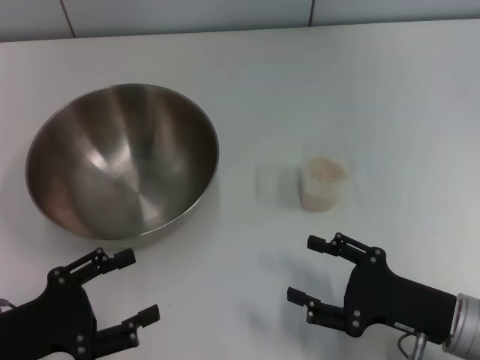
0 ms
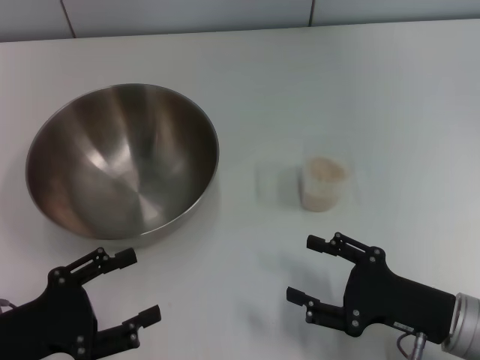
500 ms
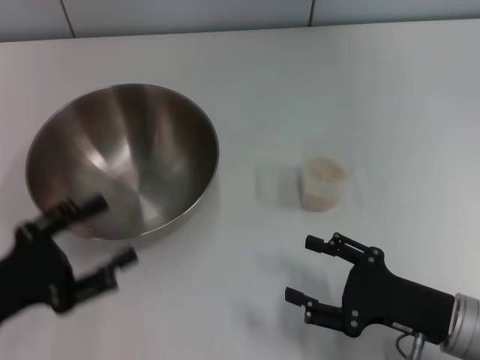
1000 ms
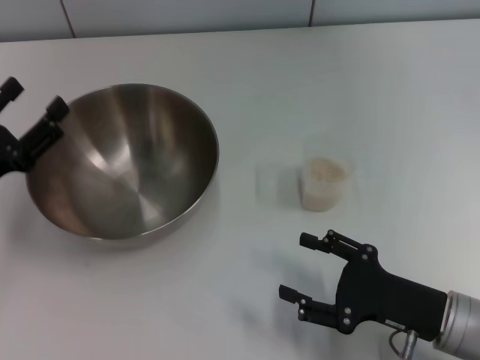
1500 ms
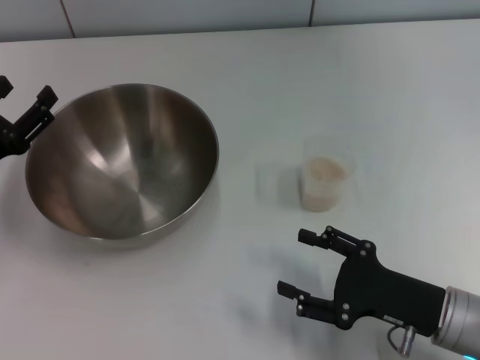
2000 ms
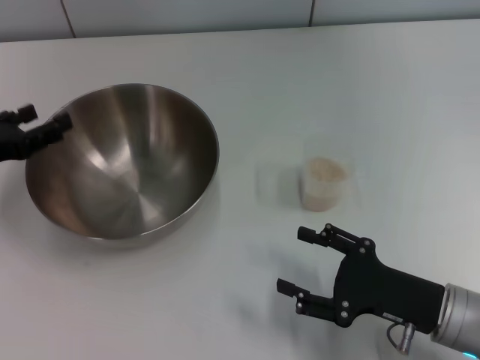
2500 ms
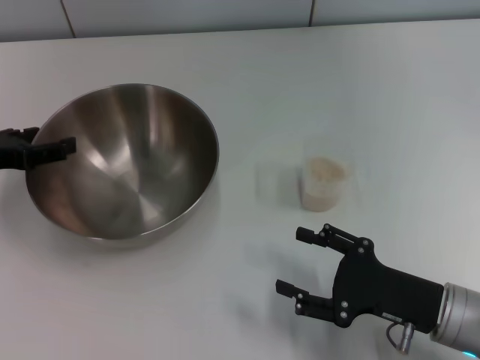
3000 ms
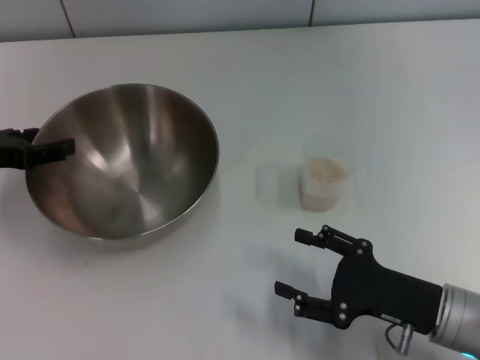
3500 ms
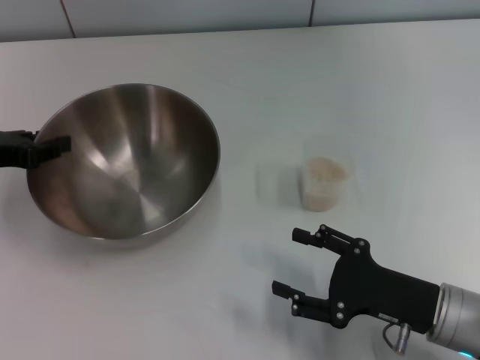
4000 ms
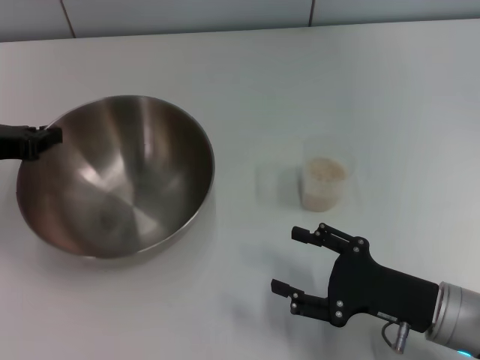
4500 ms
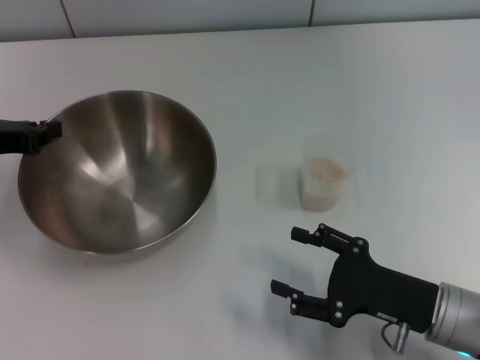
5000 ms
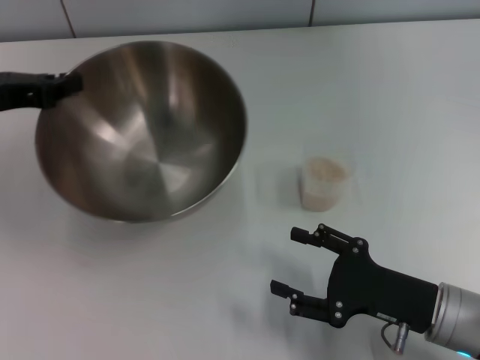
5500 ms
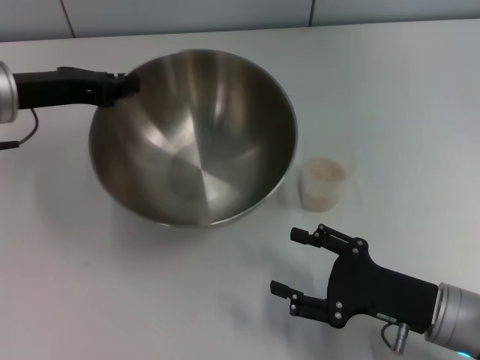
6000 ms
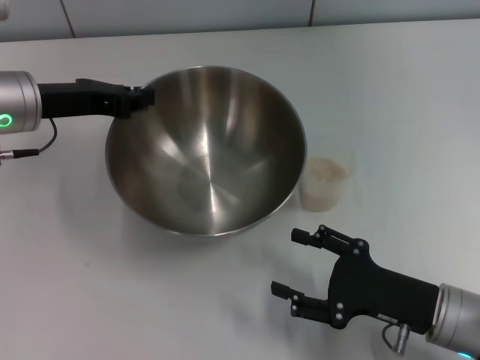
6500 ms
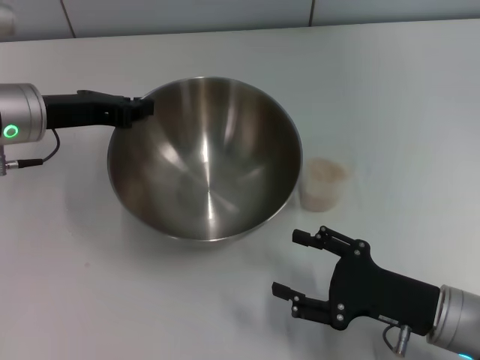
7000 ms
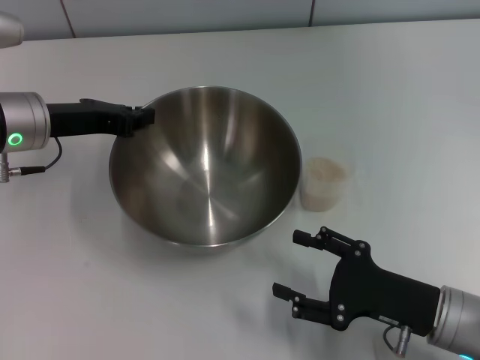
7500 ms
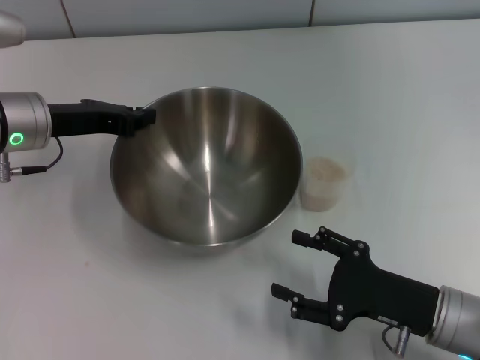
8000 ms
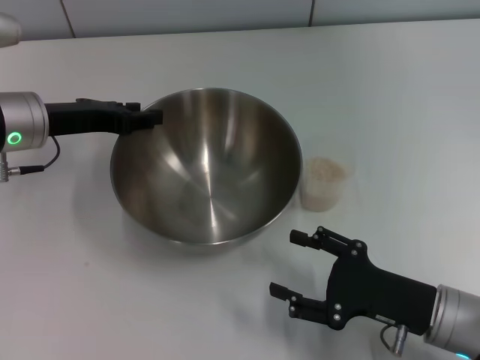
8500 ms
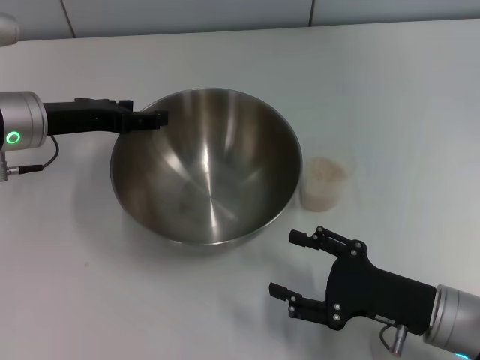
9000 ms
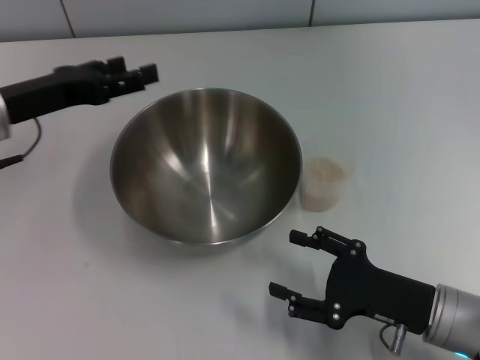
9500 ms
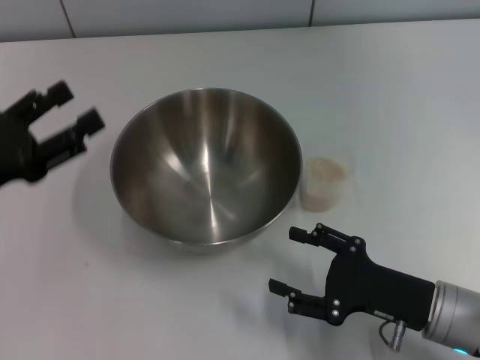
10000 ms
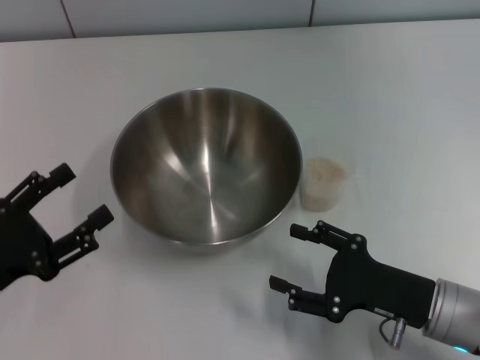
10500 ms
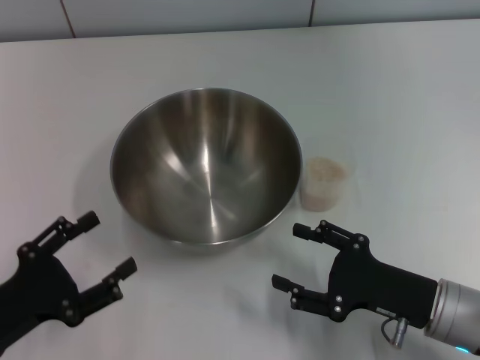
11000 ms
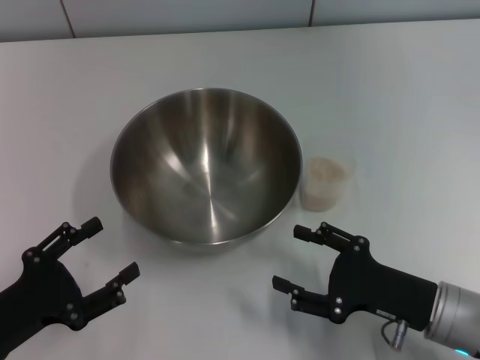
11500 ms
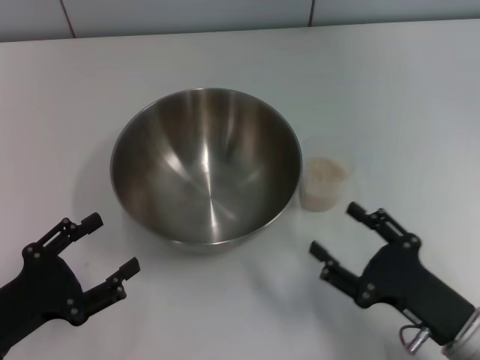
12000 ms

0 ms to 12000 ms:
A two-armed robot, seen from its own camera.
Task of the whole recording: Place the bowl in the middle of the table with one hand and pour the rice from the grain cup into it with the other hand.
Step, 0 ms to 5000 ms: Pick up the bowl with the left gripper.
Step, 5500 ms to 9000 ms: Place the bowl in the center of view with the left gripper.
0 ms to 2000 ms: The left gripper heads forward, covering about 10 cm.
2000 ms to 4000 ms: The left gripper shifts about 10 cm upward and forward.
4000 ms to 6000 ms: The left gripper moves to the right, approximately 5 cm, and closes up.
6000 ms to 8000 ms: The grippers move only a little.
8000 ms to 10000 ms: The left gripper goes roughly 15 cm backward and to the left, and opens.
10000 ms to 12000 ms: The left gripper shifts some 10 cm backward and downward.

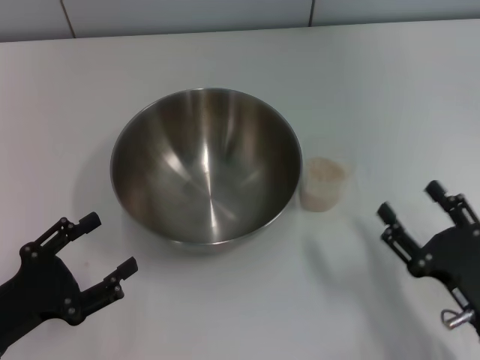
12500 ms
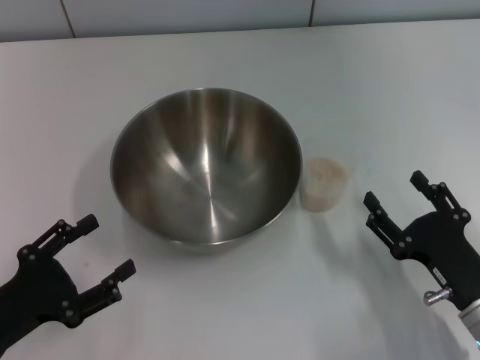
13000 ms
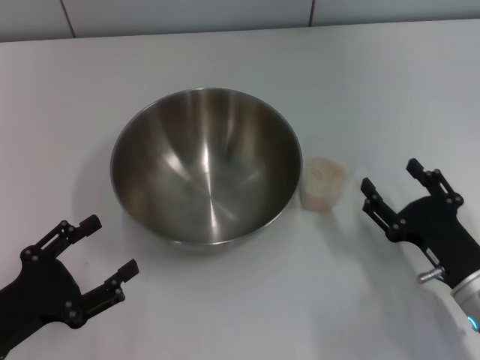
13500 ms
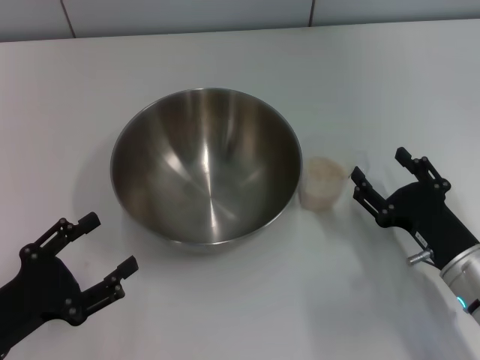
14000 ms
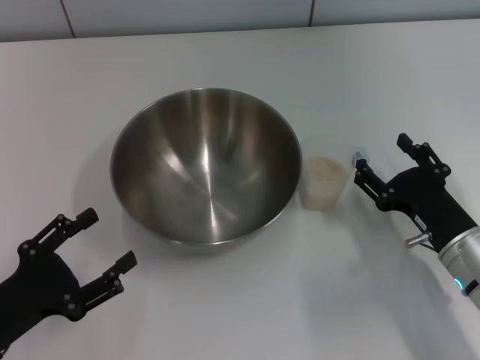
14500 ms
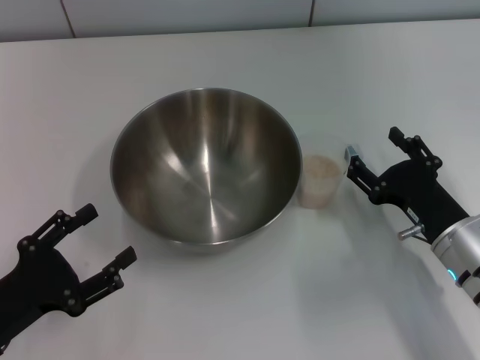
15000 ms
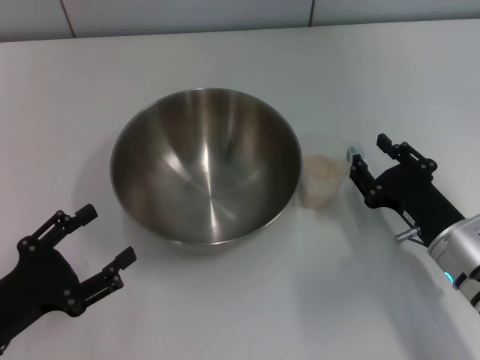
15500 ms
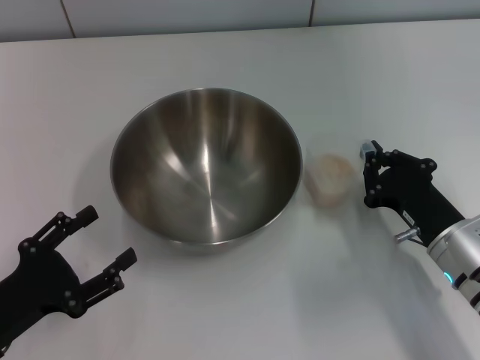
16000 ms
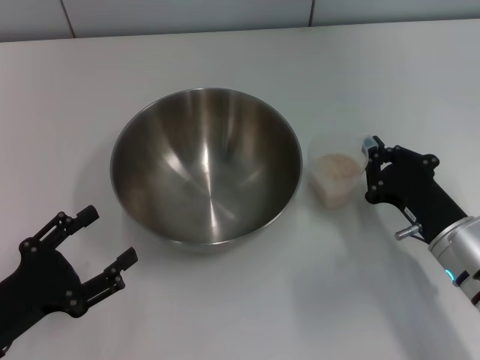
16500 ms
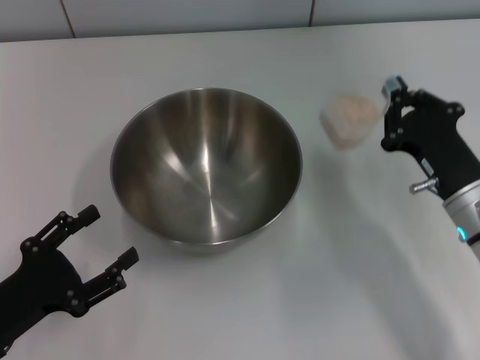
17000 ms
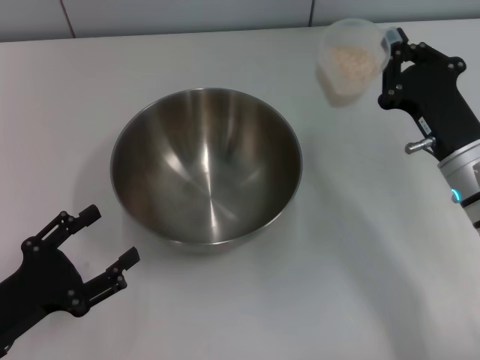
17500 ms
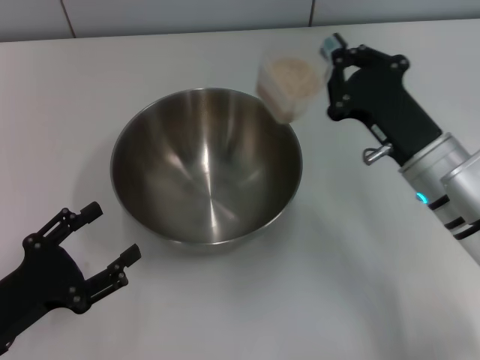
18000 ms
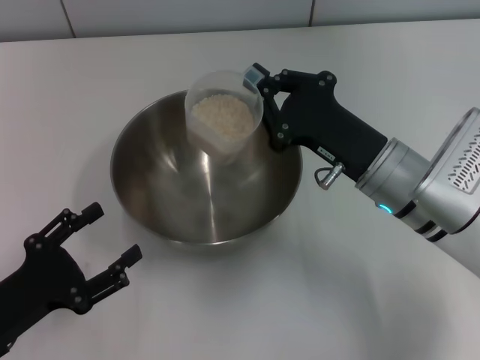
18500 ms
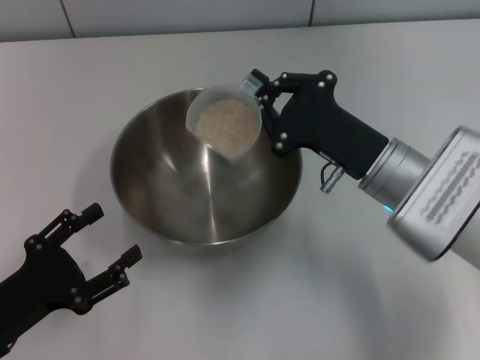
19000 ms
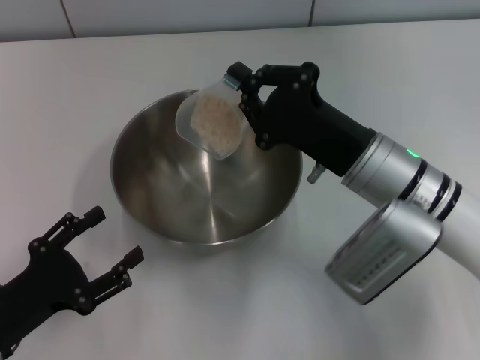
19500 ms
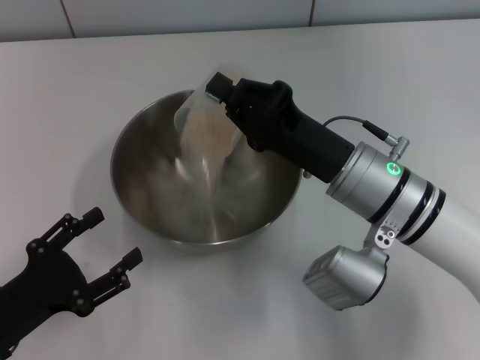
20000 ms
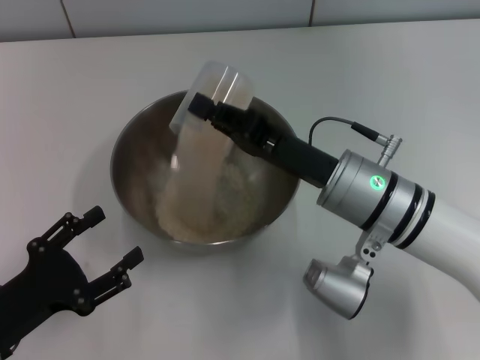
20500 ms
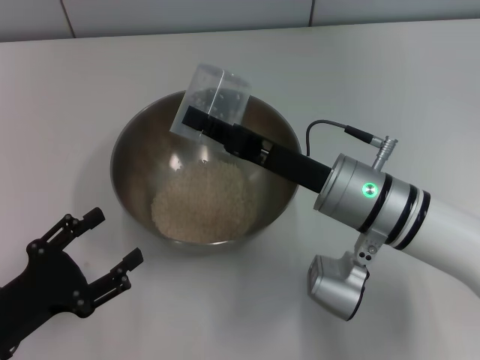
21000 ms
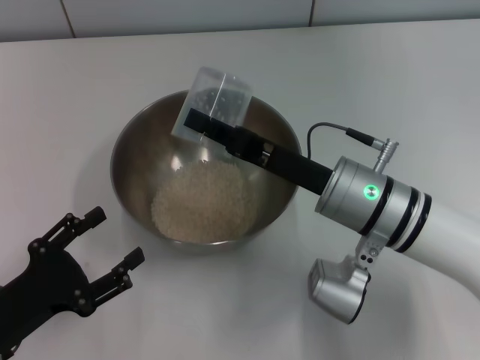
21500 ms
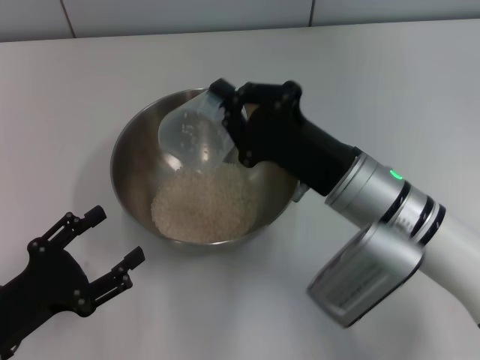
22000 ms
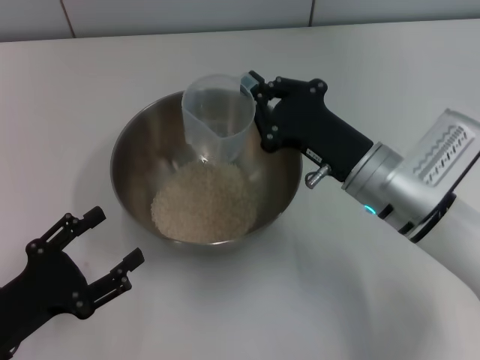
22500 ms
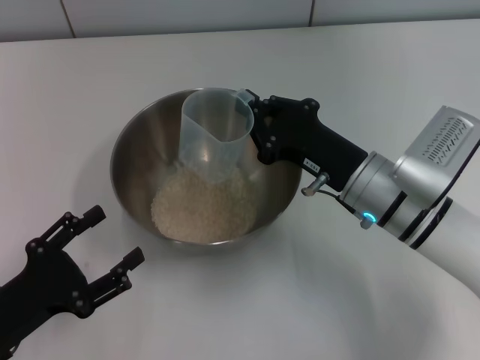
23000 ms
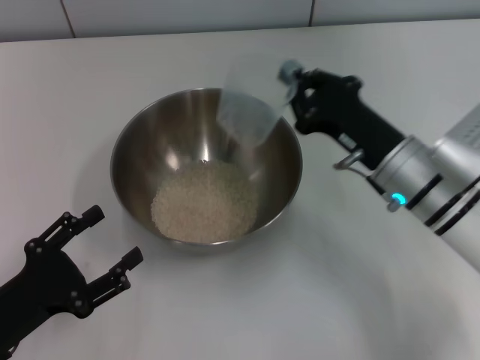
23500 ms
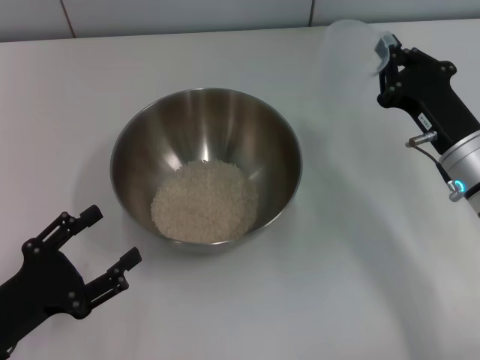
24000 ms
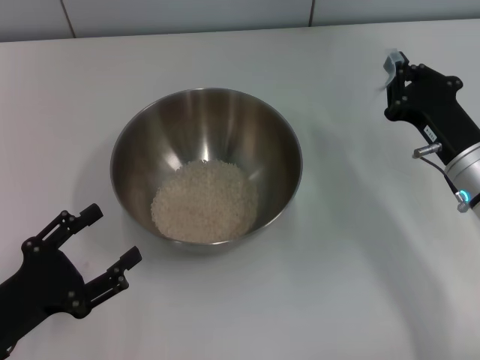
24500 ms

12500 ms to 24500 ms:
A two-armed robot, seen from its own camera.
Task of the whole recording: Place the bowl in the middle of the table with one hand and pour the rice from the grain cup into it with the other hand.
Step, 12500 ms to 17000 ms: Pick up the cup with rice in it with the right gripper.
Step, 17500 ms to 23000 ms: Pour the rice from the cup into the bowl with the right gripper.
12500 ms to 14500 ms: The right gripper moves forward, some 10 cm.
14500 ms to 16500 ms: The right gripper closes its fingers.
16500 ms to 18500 ms: The right gripper goes approximately 10 cm to the left, upward and forward.
22500 ms to 24500 ms: The right gripper travels to the right by roughly 10 cm.

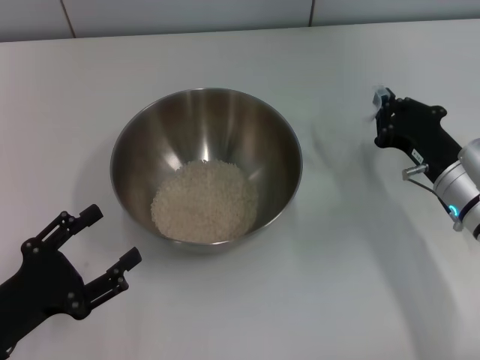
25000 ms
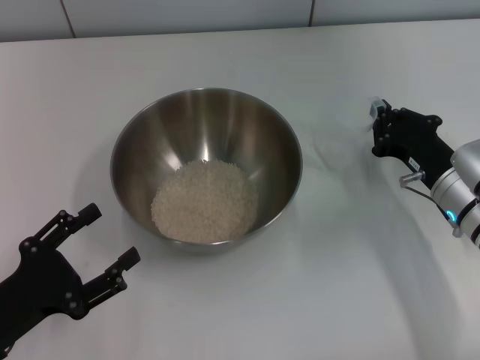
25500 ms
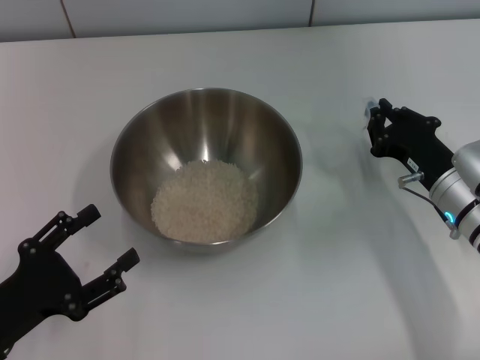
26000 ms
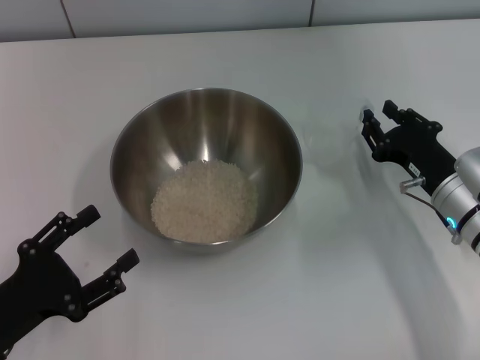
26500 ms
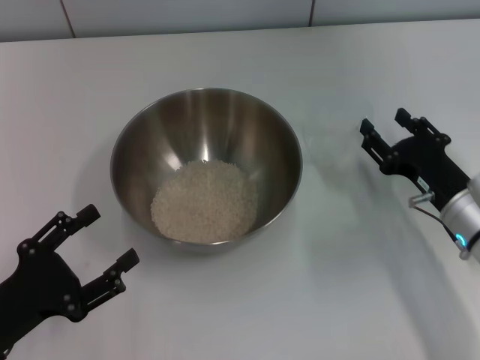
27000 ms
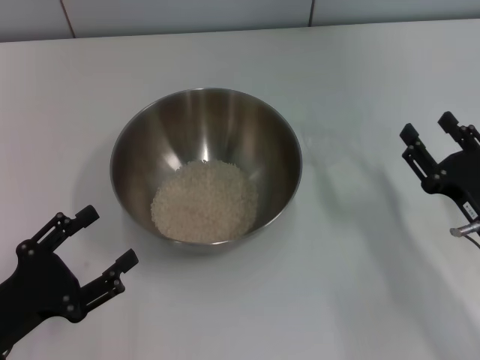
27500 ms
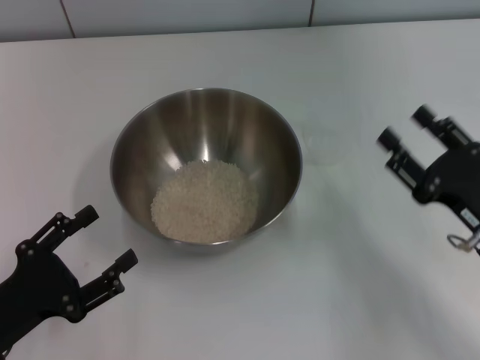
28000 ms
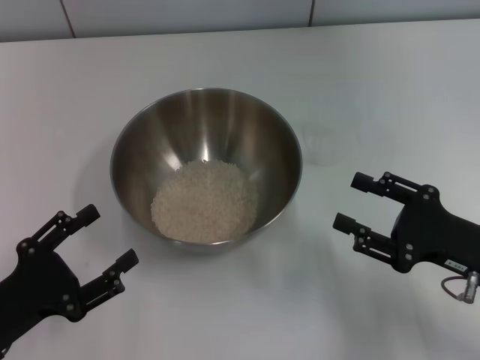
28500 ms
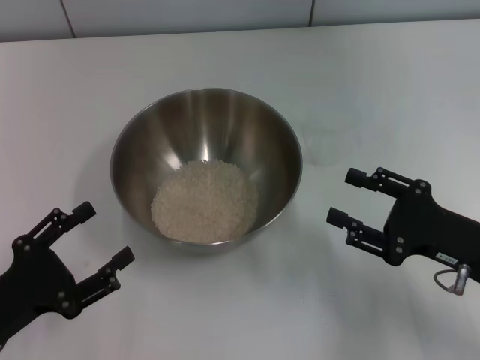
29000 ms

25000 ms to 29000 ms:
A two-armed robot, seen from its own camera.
Task of the whole recording: Place the bowl in the middle of the table with one hand and pour the rice from the grain cup into it with the other hand.
Step, 25000 ms to 27000 ms: Place the cup on the table with the right gripper.
25000 ms to 27000 ms: The right gripper opens its fingers.
27000 ms to 29000 ms: The right gripper shifts by some 5 cm.
